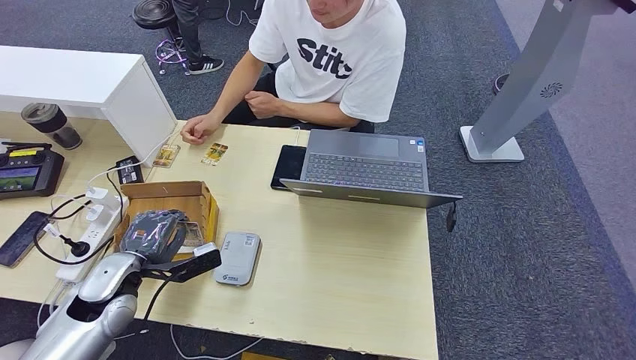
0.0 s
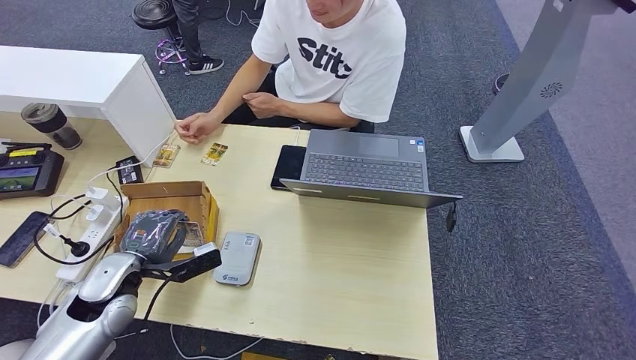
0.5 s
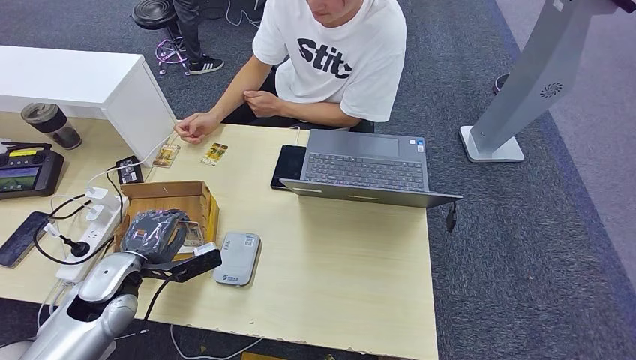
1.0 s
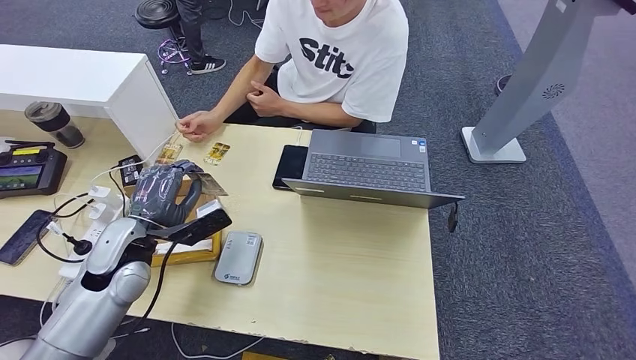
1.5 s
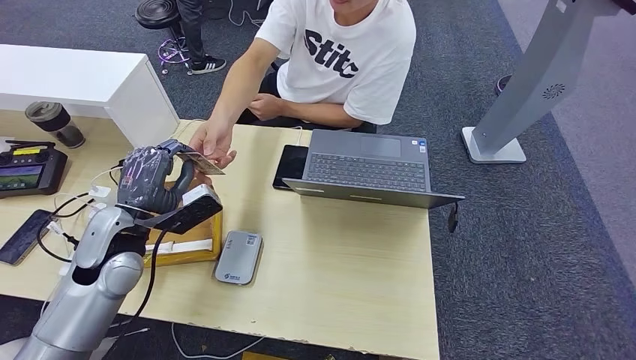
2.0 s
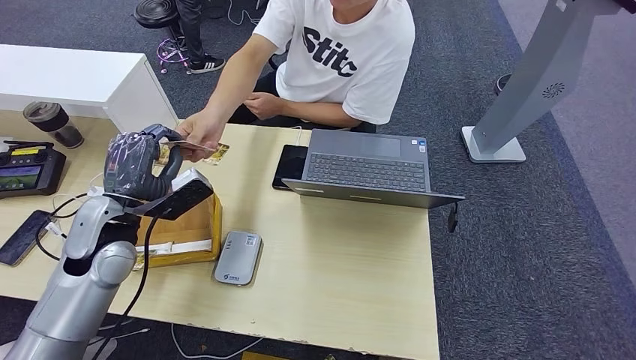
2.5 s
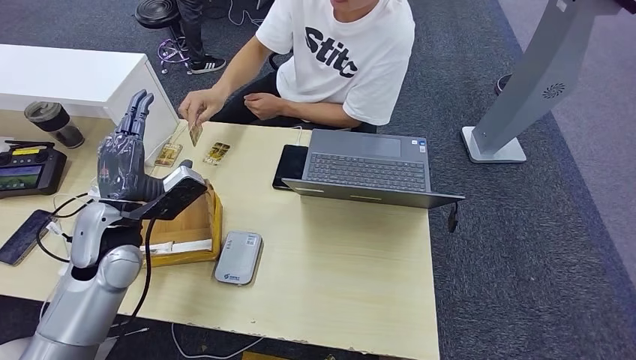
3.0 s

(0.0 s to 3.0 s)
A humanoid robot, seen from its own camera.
Step, 0.0 s - 3.0 s: Hand the room key to the person.
0.0 s - 1.5 s: The left hand shifts roughly 5 cm upward.
